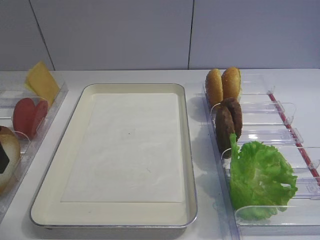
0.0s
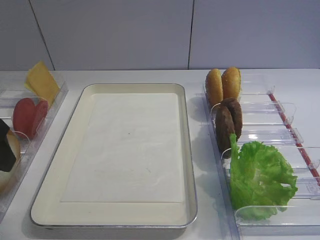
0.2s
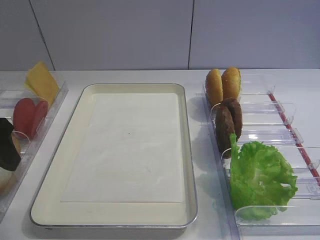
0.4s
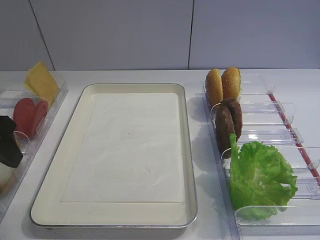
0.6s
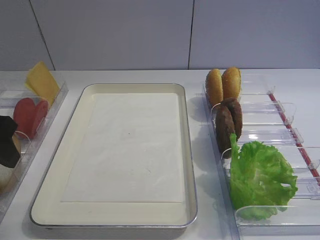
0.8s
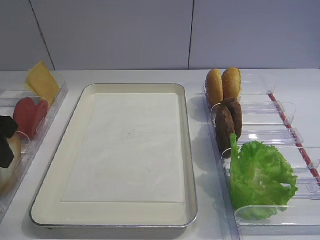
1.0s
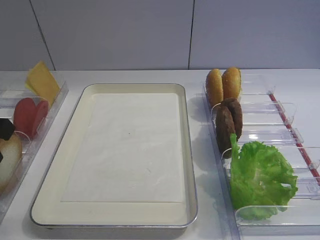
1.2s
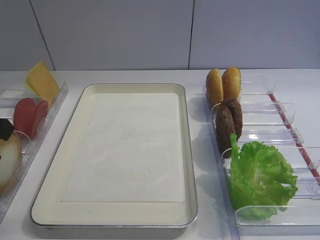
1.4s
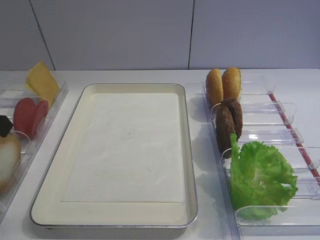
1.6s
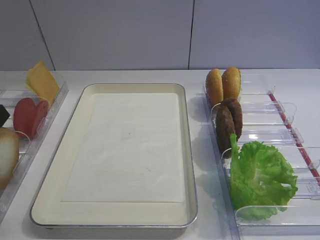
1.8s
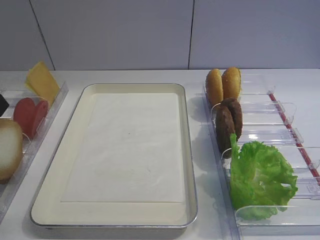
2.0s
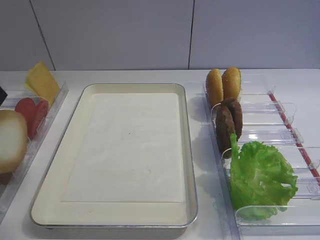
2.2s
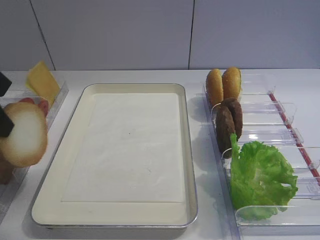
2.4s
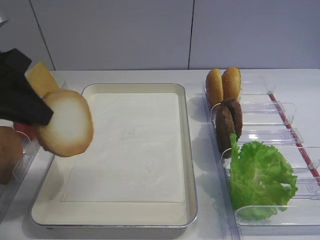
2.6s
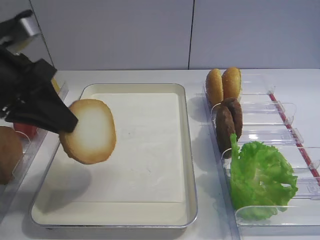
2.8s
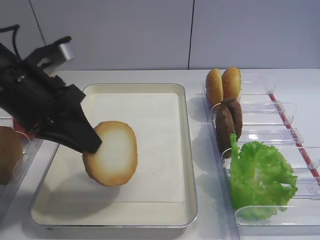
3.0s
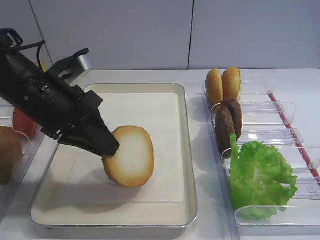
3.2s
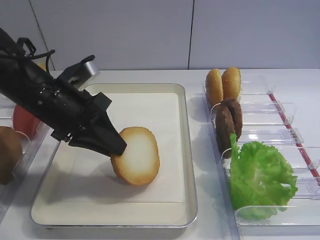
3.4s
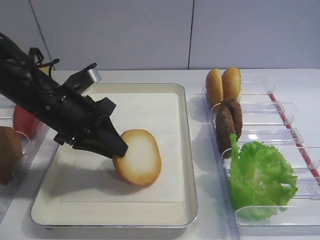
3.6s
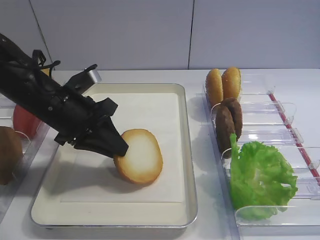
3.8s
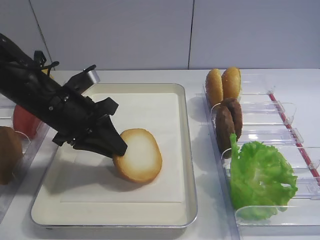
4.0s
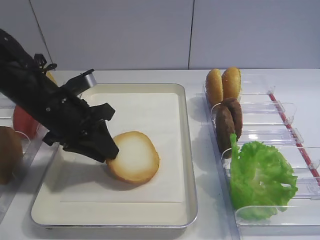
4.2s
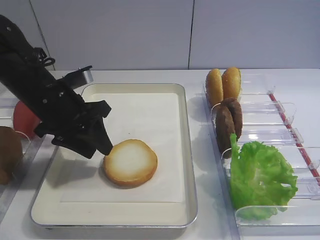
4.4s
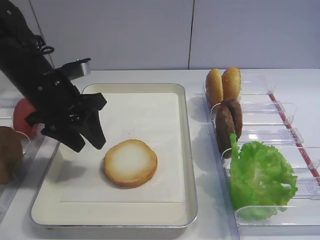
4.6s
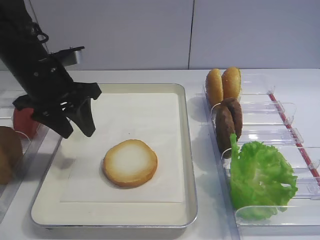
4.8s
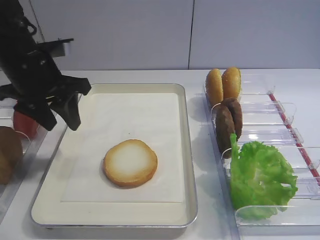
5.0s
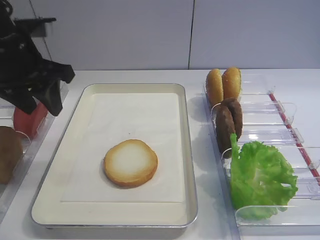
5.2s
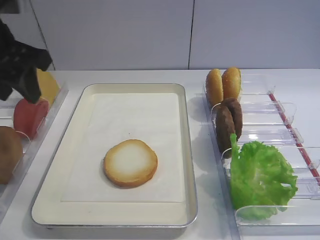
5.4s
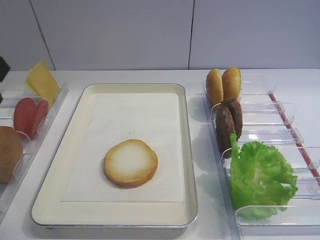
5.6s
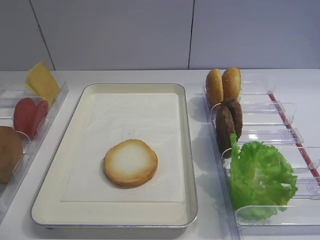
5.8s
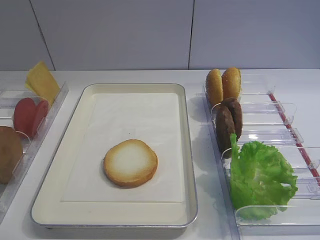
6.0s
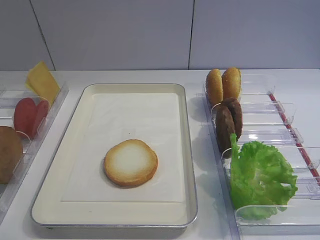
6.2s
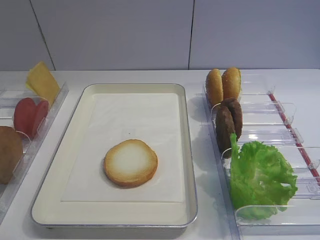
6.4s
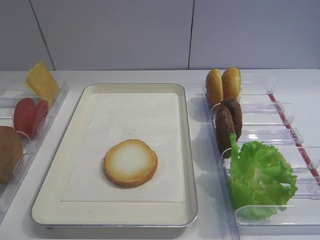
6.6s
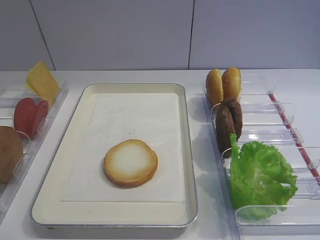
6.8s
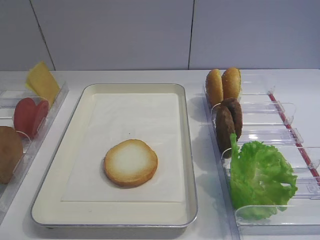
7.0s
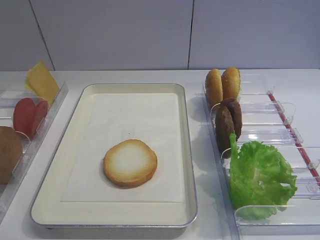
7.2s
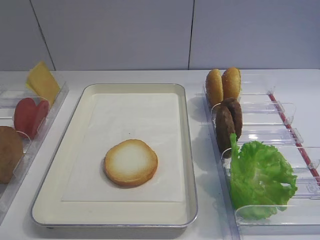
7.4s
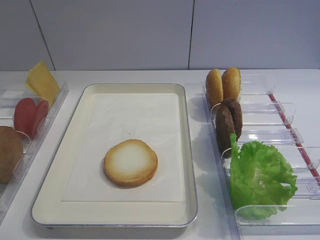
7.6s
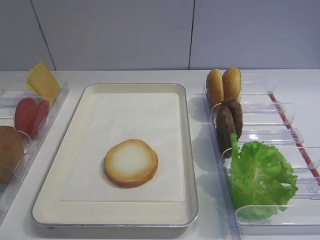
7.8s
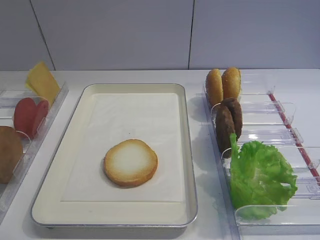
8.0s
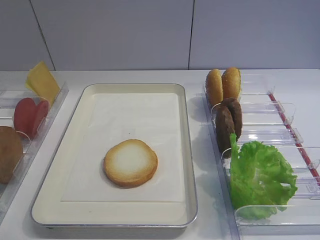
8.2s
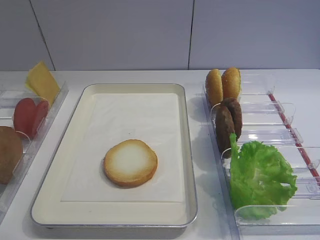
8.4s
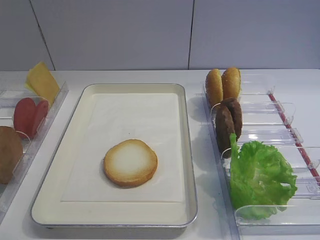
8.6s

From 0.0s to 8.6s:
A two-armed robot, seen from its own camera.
Step, from 2.0s to 4.8s: Place the bread slice on the tray with the left gripper.
From 0.0s to 1.4s: The left gripper closes its fingers.
From 1.4s to 2.8s: The left gripper travels to the right by about 10 cm.
From 2.8s to 4.4s: The left gripper moves forward, roughly 5 cm, and opens its fingers.
From 4.4s to 5.8s: The left gripper heads backward, upward and to the left, covering about 25 cm.

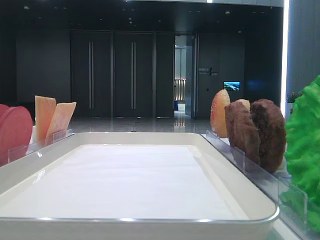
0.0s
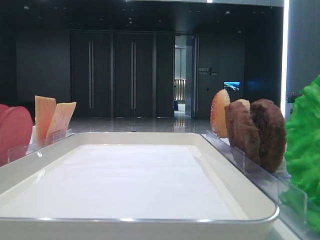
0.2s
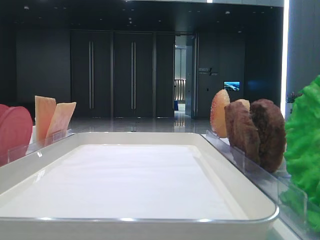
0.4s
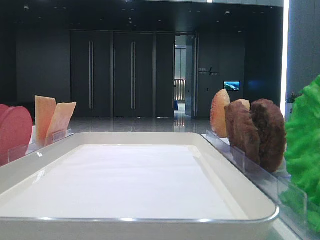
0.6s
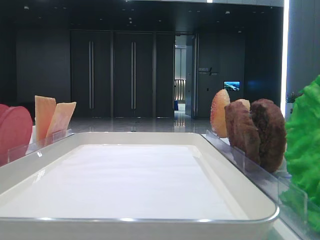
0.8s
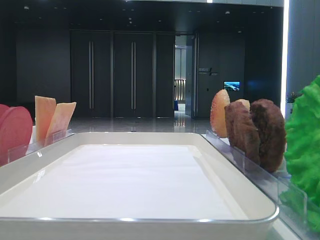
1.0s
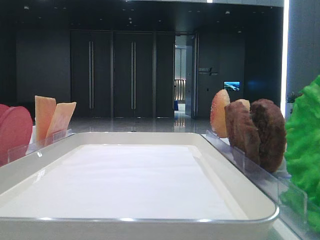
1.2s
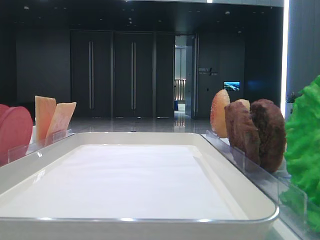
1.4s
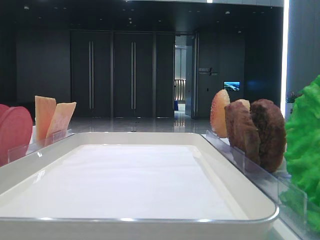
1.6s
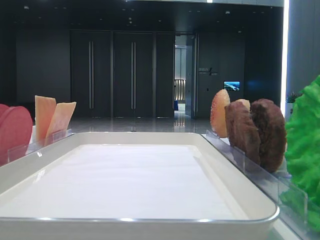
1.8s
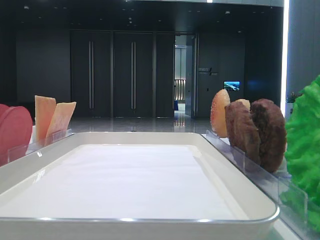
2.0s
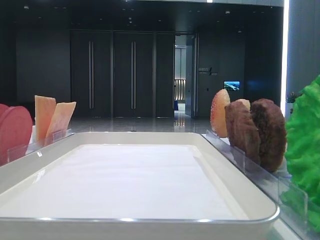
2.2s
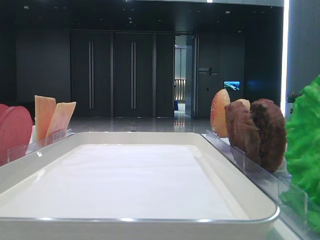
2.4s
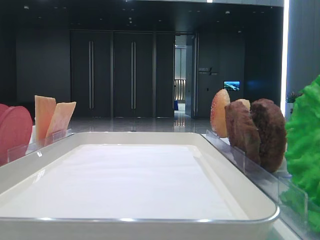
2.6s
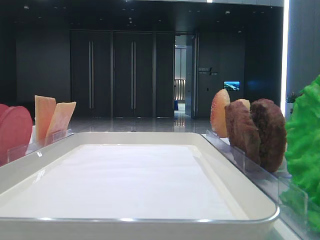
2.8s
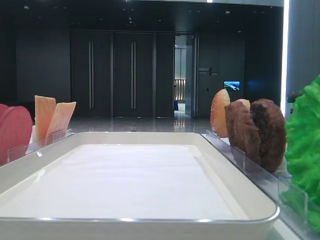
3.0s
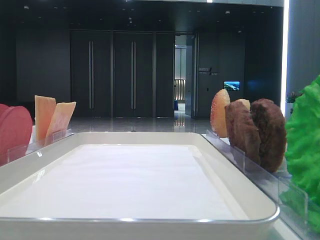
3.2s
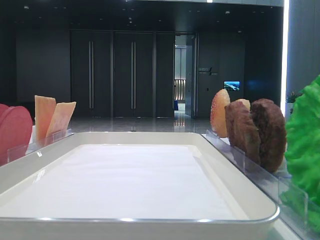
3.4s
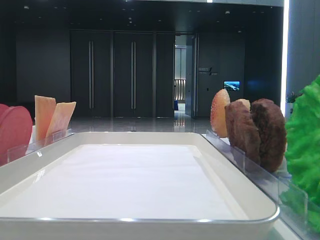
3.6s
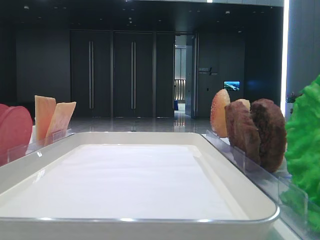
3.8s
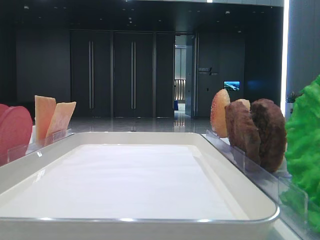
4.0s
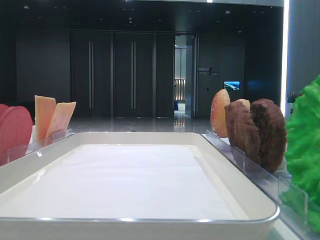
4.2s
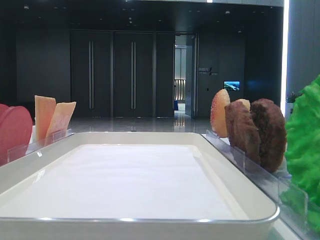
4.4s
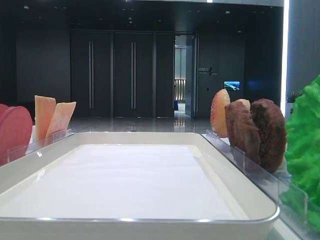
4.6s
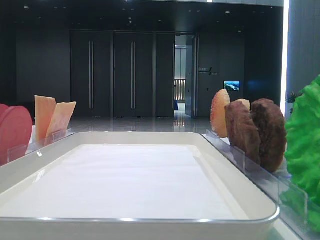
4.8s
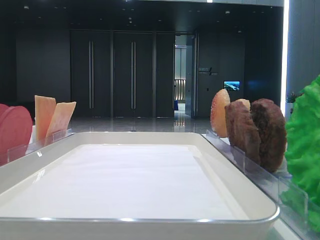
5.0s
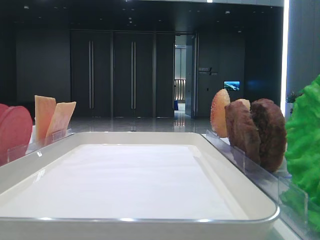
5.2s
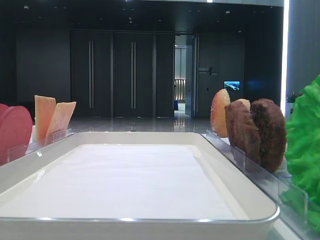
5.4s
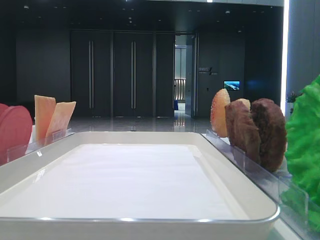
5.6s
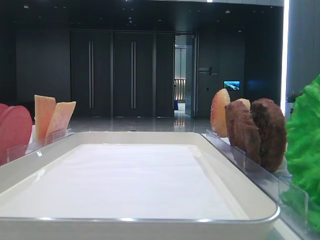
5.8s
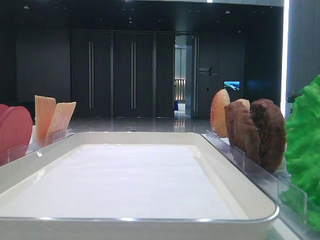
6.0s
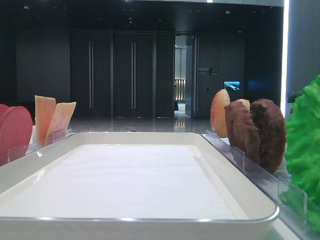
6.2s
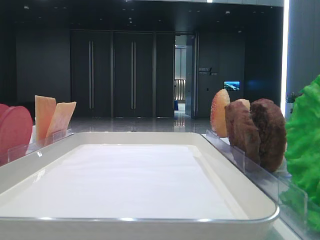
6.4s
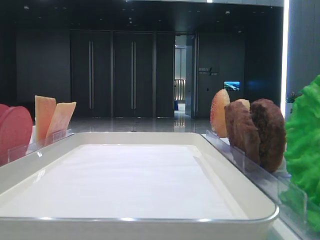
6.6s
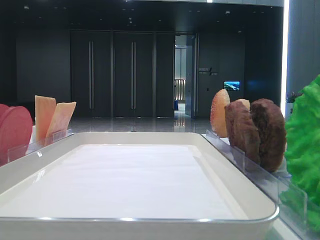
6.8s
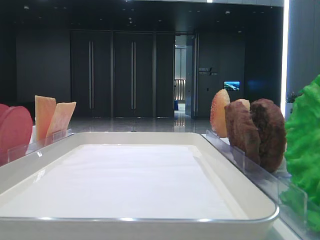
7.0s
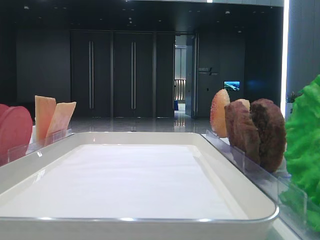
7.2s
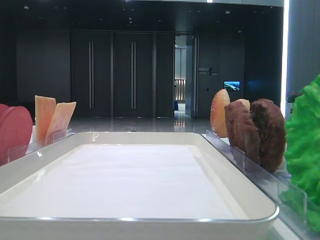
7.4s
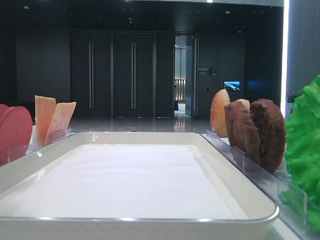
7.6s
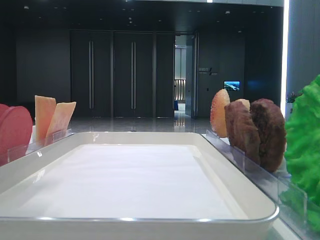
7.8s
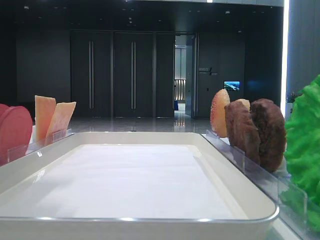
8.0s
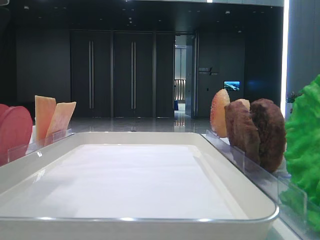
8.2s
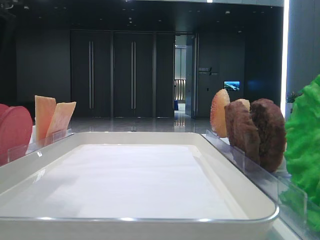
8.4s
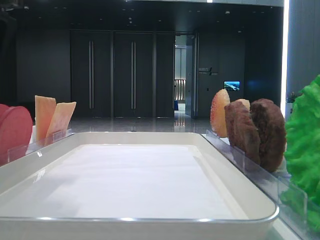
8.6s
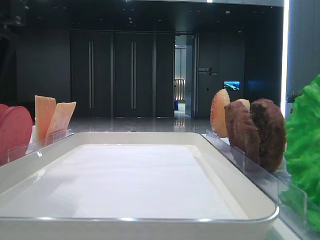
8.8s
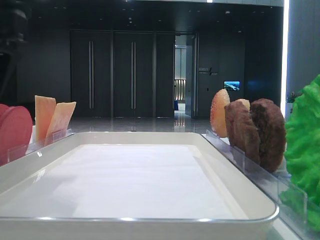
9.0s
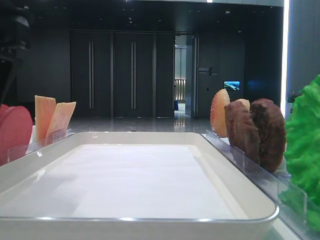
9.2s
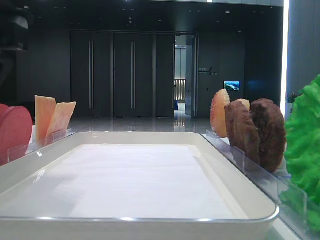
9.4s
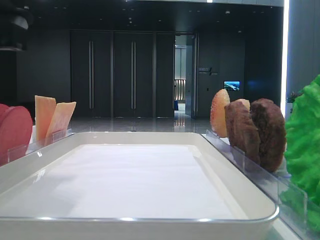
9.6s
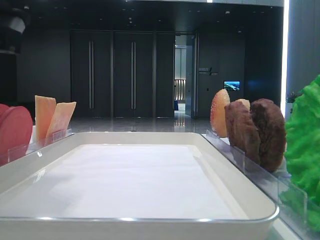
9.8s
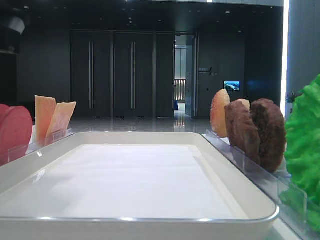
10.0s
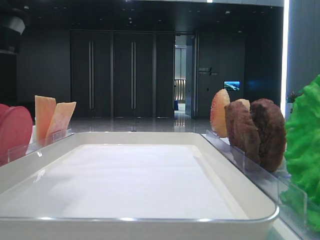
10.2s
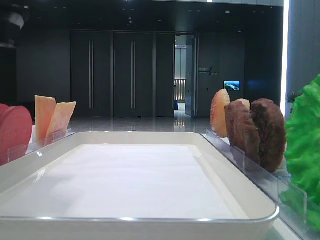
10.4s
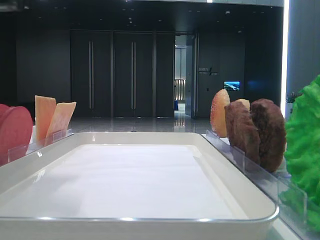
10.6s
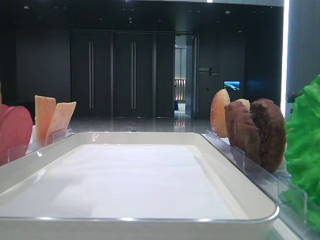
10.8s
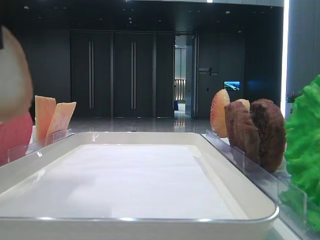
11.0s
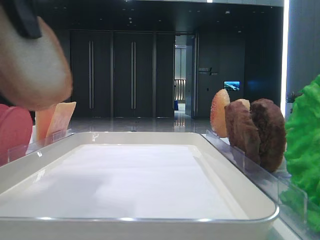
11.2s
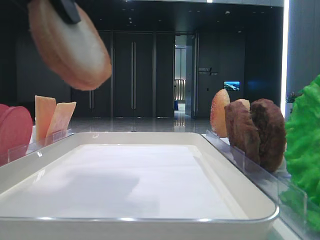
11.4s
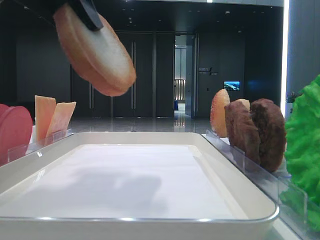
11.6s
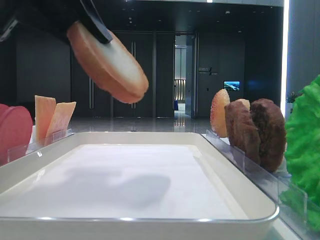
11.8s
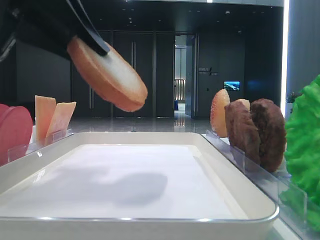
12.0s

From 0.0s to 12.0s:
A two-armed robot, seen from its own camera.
From 1.6s to 4.4s: Both grippers stay put.
From 7.6s to 9.0s: The left gripper moves downward and to the right, some 10 cm.

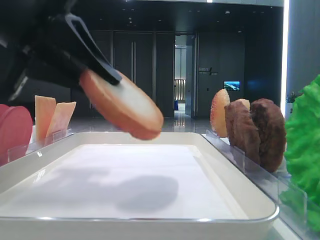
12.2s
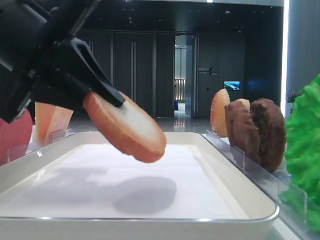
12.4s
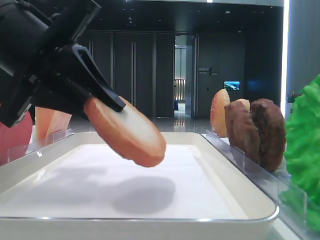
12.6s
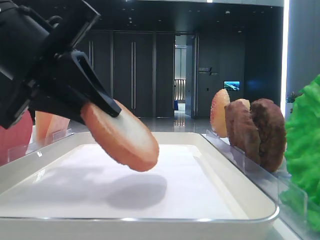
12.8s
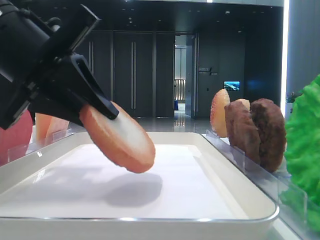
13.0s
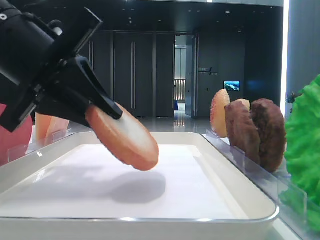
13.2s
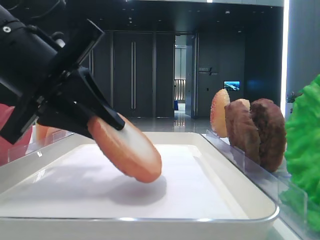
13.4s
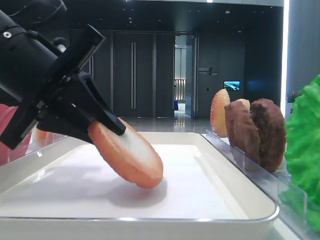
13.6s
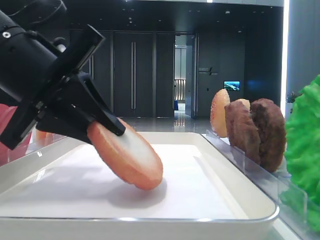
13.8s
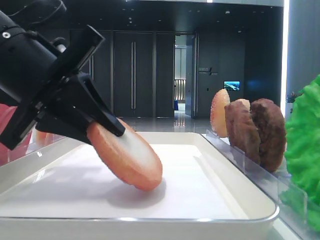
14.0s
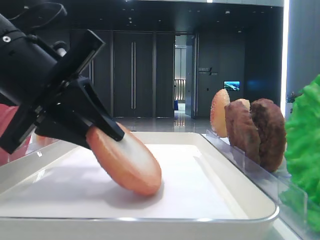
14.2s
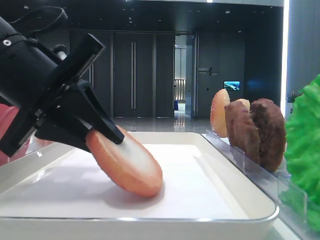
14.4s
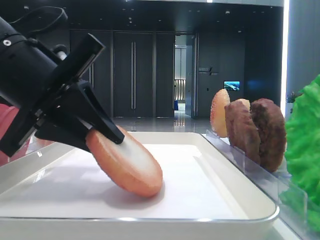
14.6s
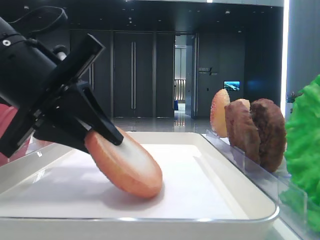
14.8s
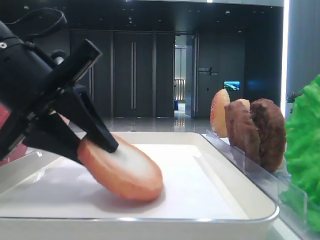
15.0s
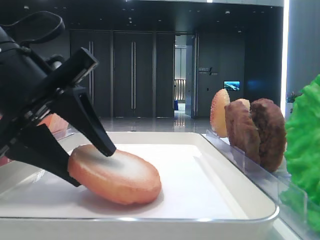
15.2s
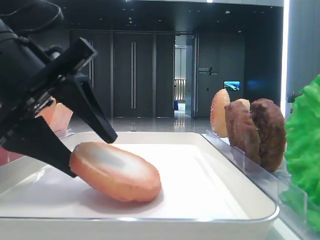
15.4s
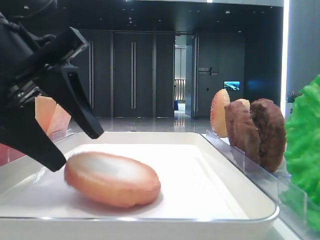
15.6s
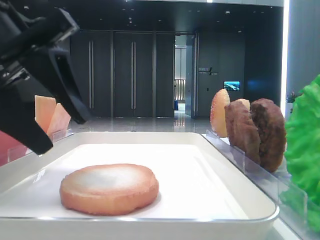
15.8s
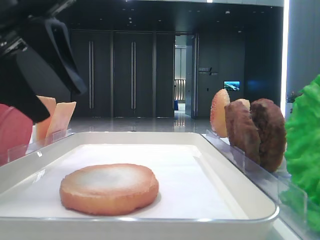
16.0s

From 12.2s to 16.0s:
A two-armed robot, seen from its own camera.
Step, from 12.2s to 15.4s: Place the bread on the tray with the left hand.
From 12.2s to 13.4s: The left gripper moves downward, approximately 5 cm.
From 13.4s to 14.8s: Neither gripper changes place.
From 14.8s to 16.0s: The left gripper moves upward, about 5 cm, and opens.
